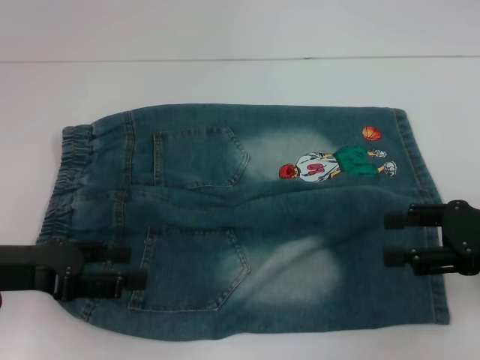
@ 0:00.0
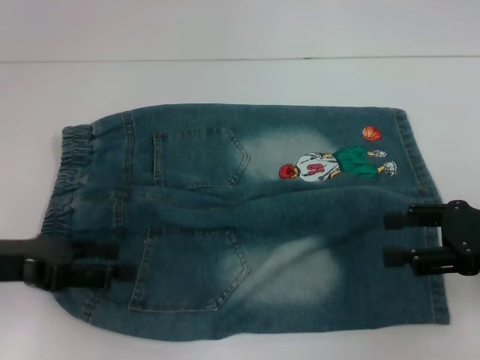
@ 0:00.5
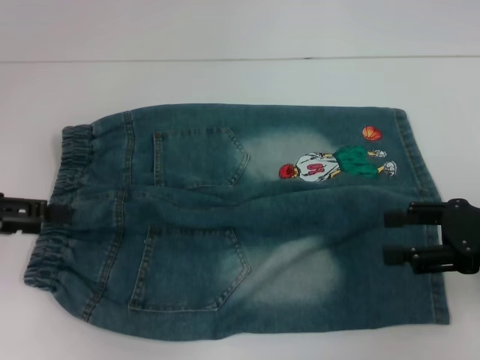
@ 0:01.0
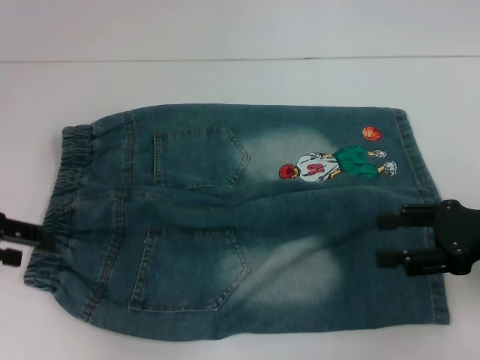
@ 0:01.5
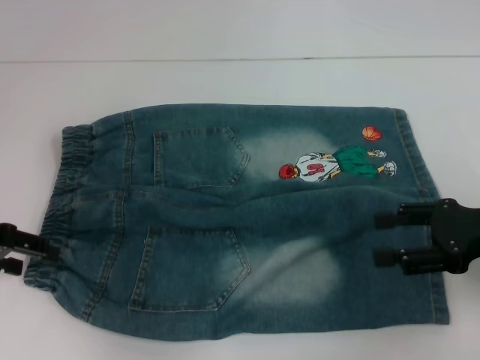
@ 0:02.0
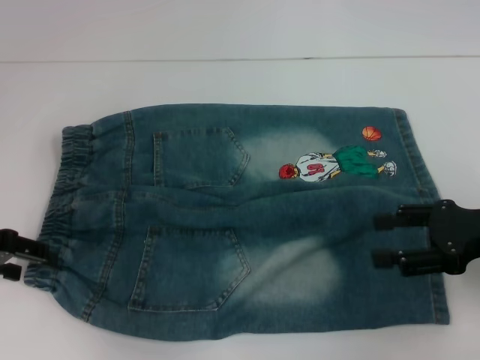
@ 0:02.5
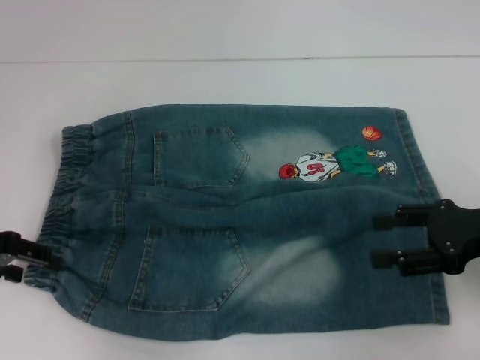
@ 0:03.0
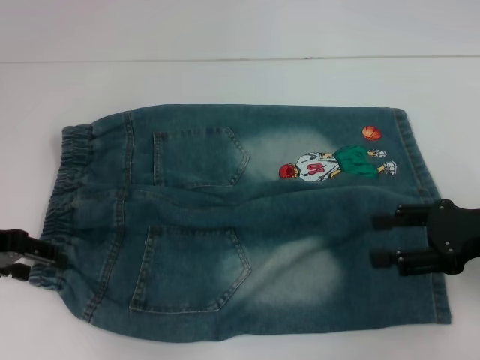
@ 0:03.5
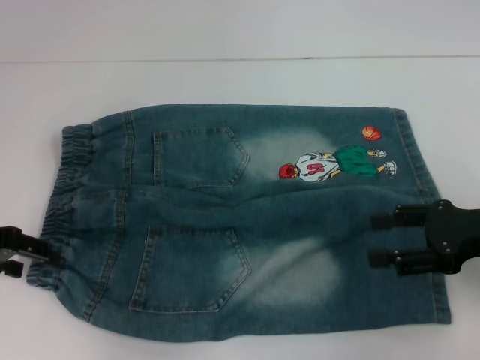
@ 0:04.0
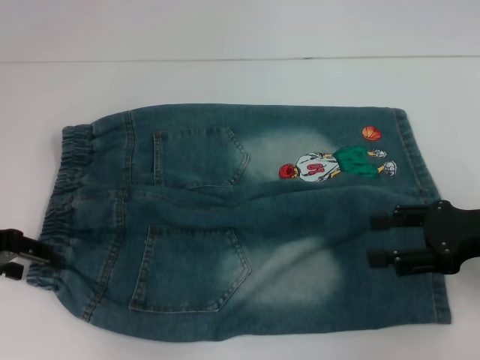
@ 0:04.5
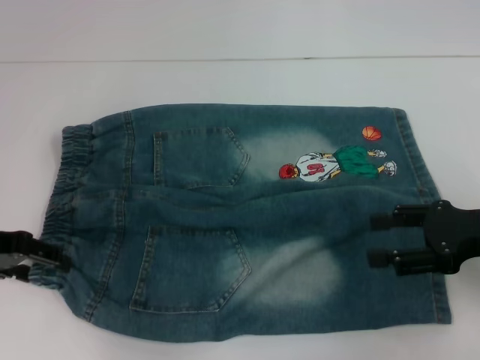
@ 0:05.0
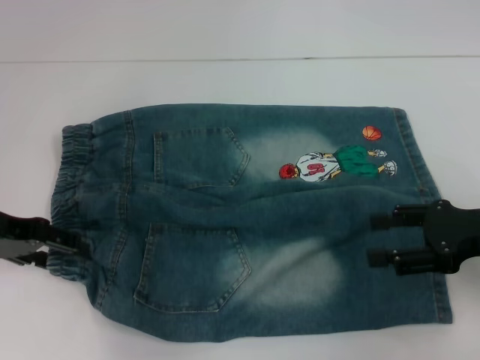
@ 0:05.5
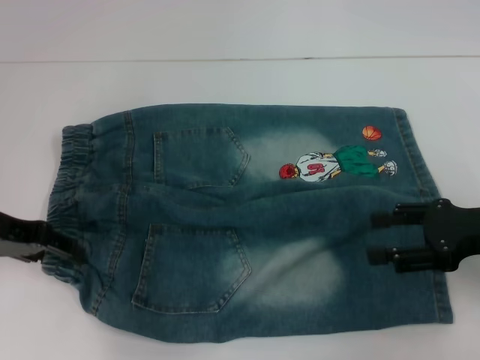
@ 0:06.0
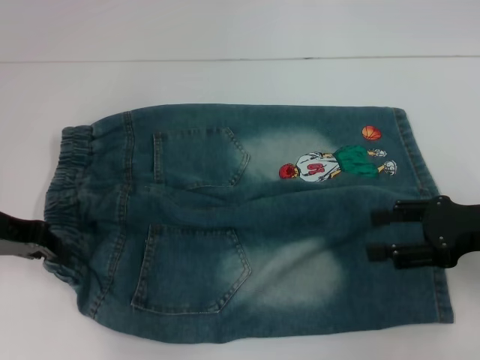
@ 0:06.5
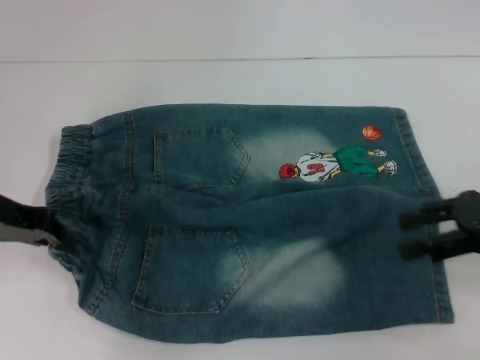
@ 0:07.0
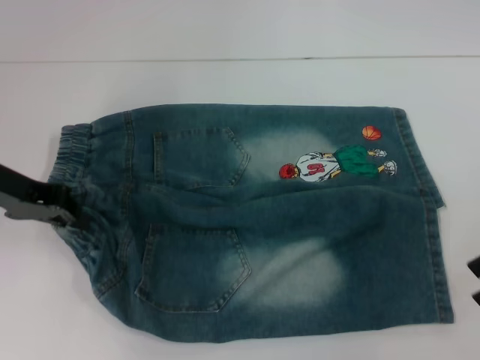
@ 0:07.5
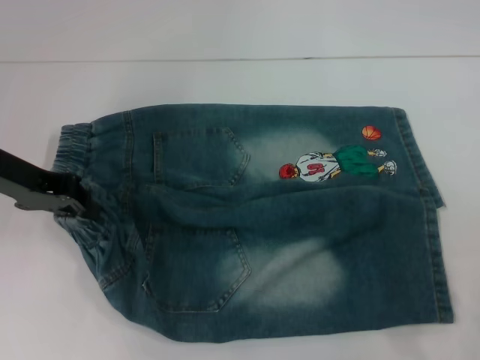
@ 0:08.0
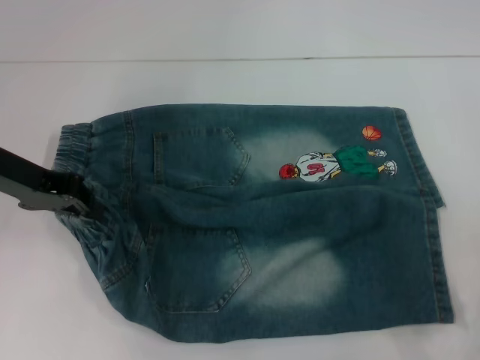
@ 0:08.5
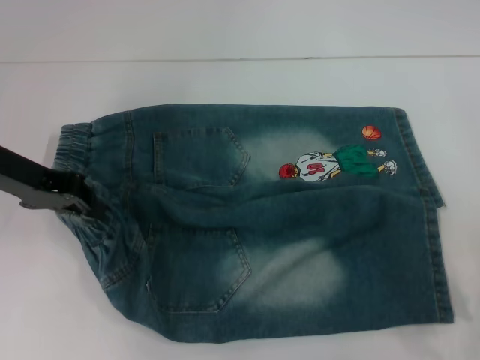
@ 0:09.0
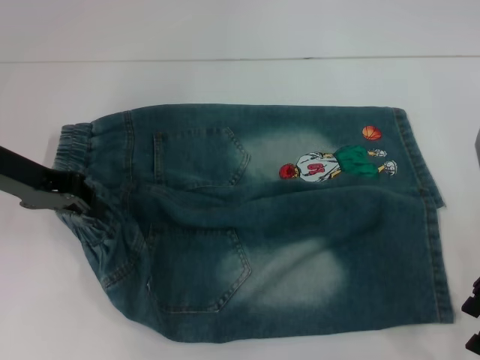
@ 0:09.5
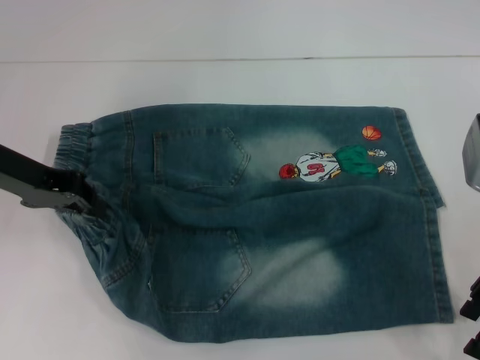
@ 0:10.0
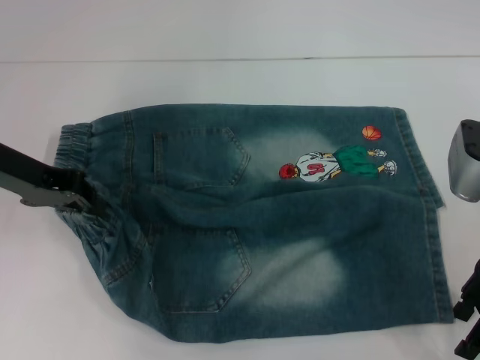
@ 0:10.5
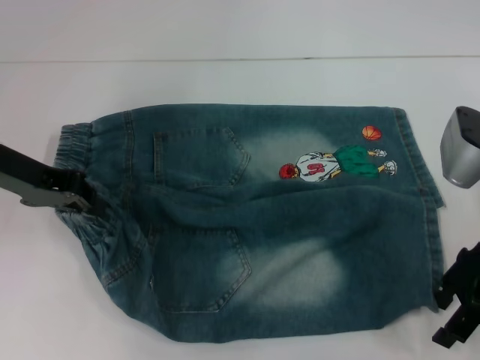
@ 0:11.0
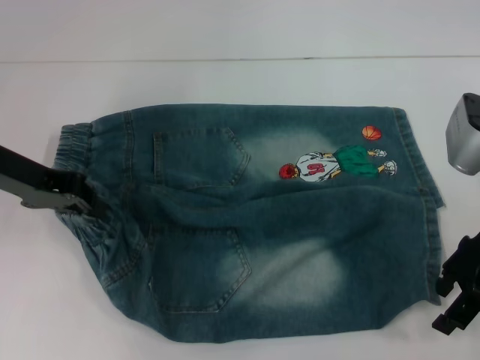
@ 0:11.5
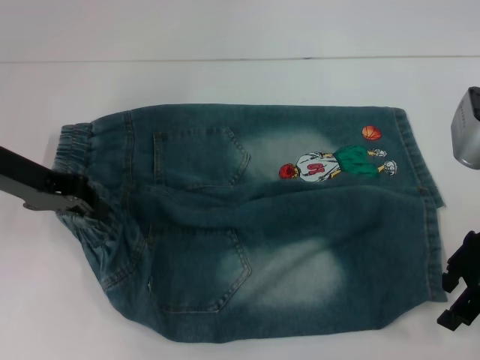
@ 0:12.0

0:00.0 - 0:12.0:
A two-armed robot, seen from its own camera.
Step, 0:00.0 - 0:07.0: Hold the lower left waistband with your left hand.
0:00.0 - 0:02.0: The left gripper moves forward, about 5 cm.
0:02.0 - 0:04.0: Neither gripper changes place.
0:04.0 - 0:06.0: The grippers move only a little.
0:06.0 - 0:08.0: The left gripper changes place by about 5 cm, and closes. Meanwhile the right gripper heads upward, covering roughly 5 cm.
0:08.0 - 0:10.0: The right gripper goes some 5 cm to the left.
0:10.0 - 0:12.0: There are only small adjustments of the grippers.

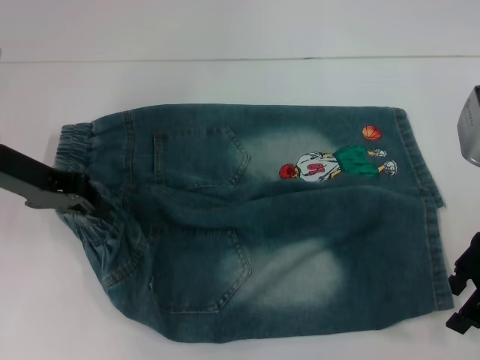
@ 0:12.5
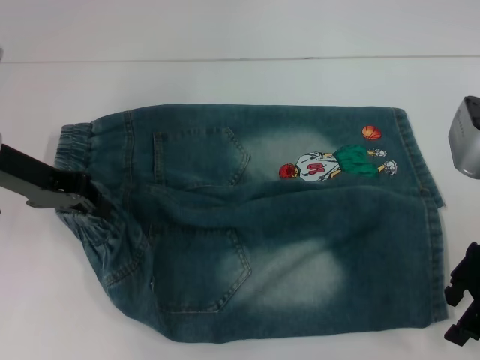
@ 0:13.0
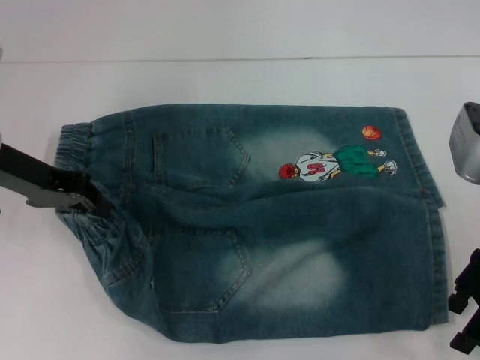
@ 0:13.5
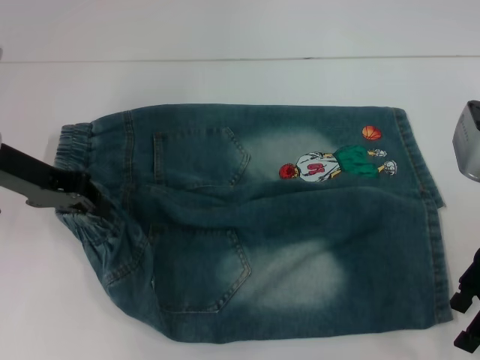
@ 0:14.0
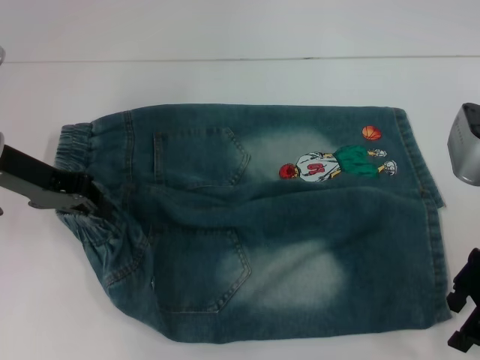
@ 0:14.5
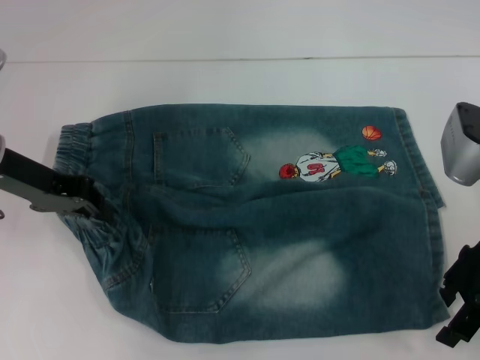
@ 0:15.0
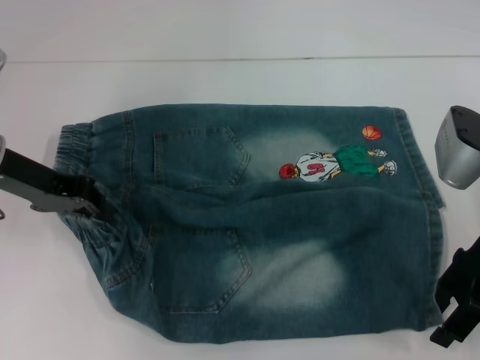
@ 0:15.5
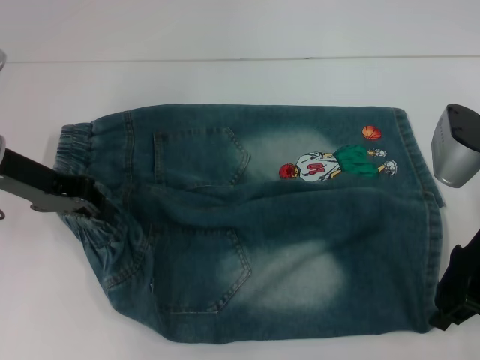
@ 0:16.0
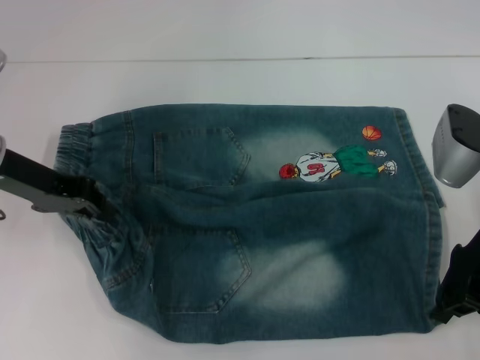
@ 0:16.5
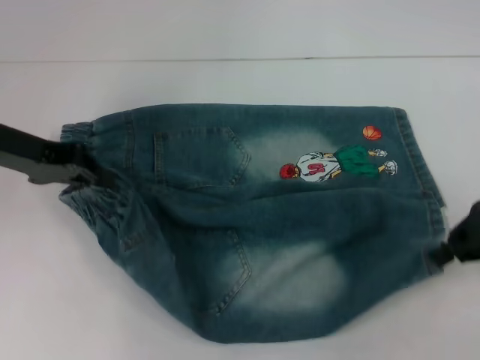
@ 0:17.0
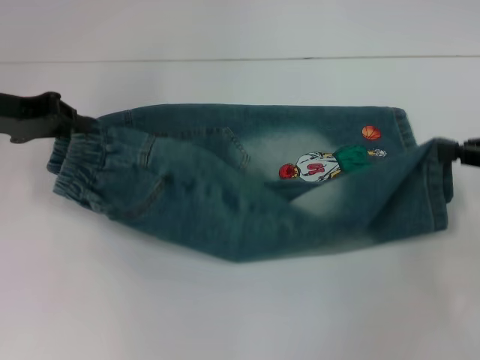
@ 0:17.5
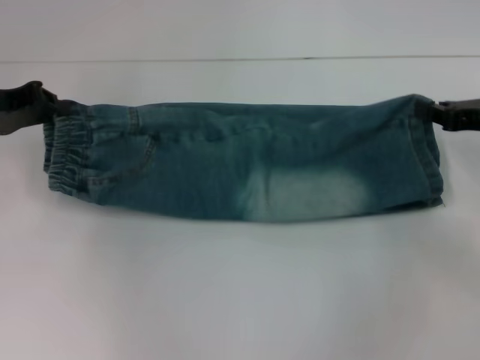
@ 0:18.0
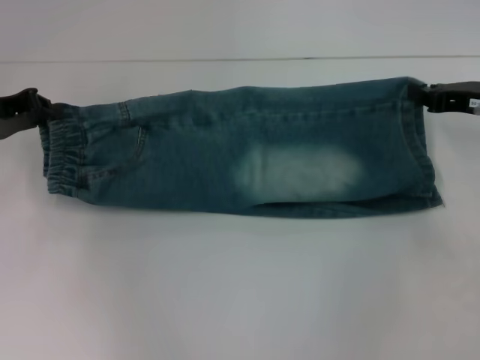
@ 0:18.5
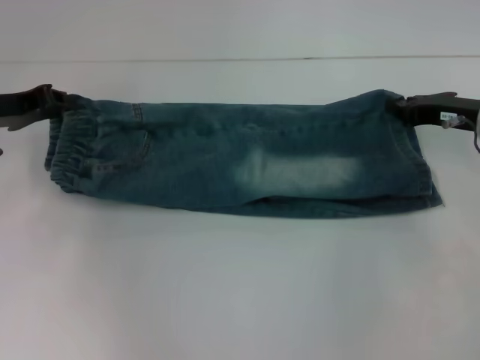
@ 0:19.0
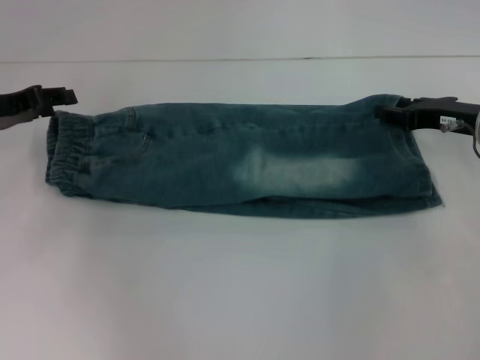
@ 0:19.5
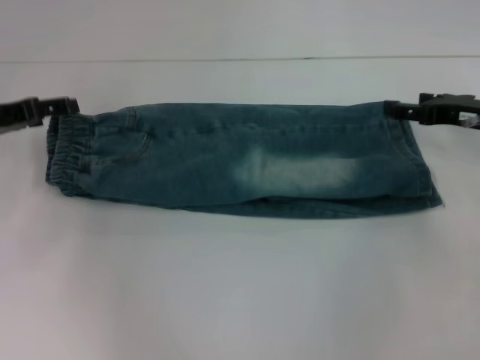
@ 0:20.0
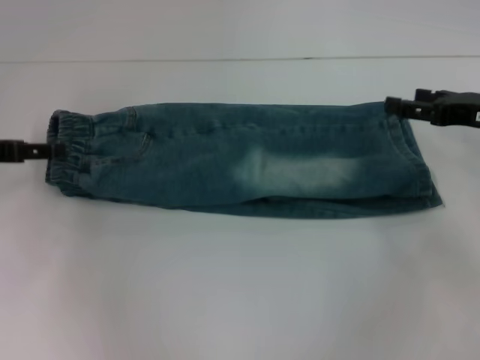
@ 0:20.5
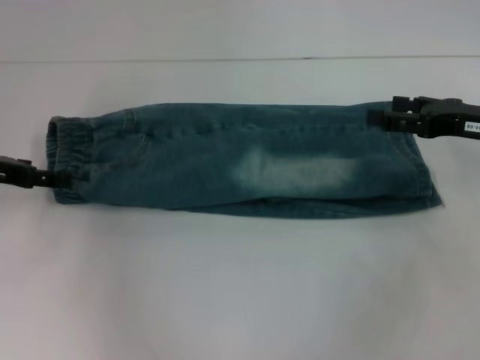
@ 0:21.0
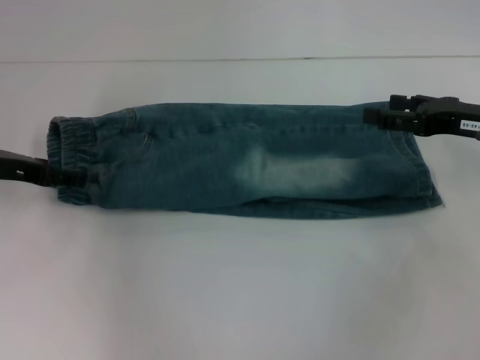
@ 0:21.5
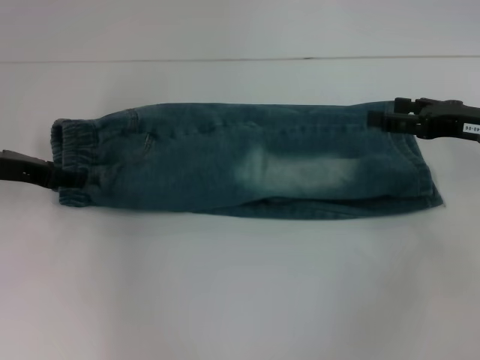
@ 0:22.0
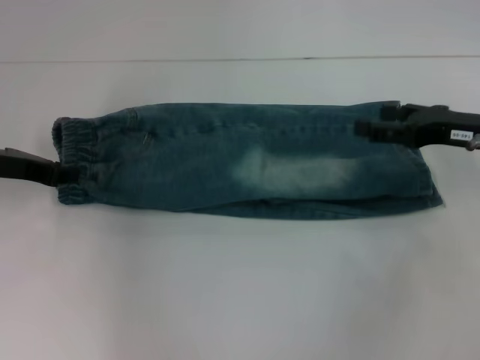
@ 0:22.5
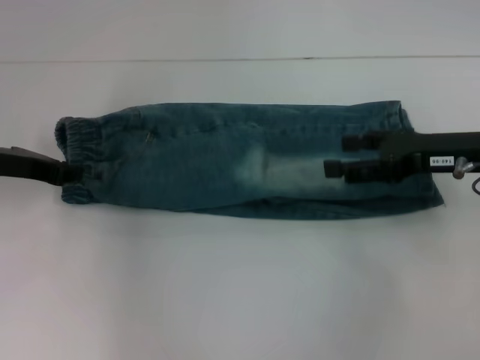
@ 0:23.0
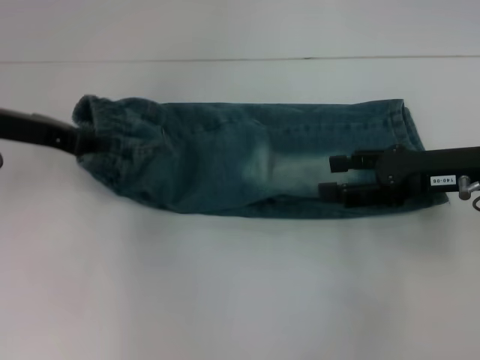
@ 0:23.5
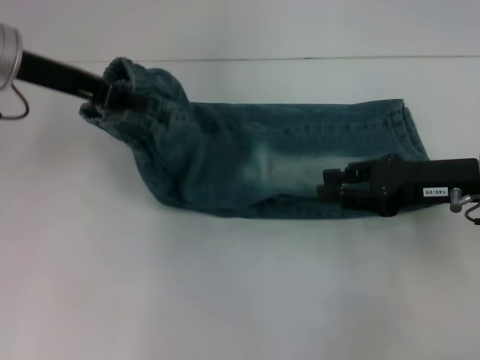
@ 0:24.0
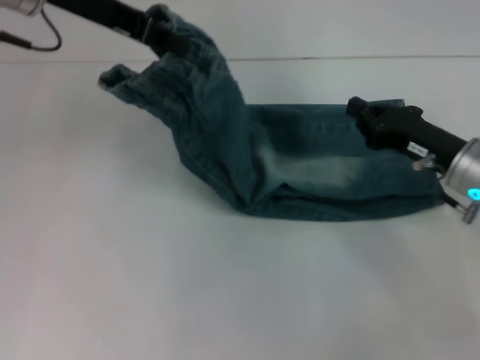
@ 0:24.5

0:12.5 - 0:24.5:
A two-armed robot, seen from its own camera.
Step, 0:12.5 - 0:16.0: Grab the lower right pant leg with your right hand.
Step, 0:16.5 - 0:19.0: Fold upward with your left hand.
Step, 0:20.0 - 0:23.0: Hold the waistband with your left hand.
0:12.5 - 0:14.5: The two grippers keep their place.
0:14.5 - 0:16.5: The right gripper closes its fingers.
0:16.5 - 0:18.5: The right gripper moves to the right and forward, some 10 cm. Meanwhile the left gripper moves to the left, roughly 5 cm.
0:18.5 - 0:20.5: The right gripper opens its fingers. Meanwhile the left gripper opens up.
0:20.5 - 0:22.5: The left gripper closes up.
0:22.5 - 0:24.5: The right gripper moves about 5 cm, and closes up. The left gripper shifts approximately 20 cm upward and to the right.

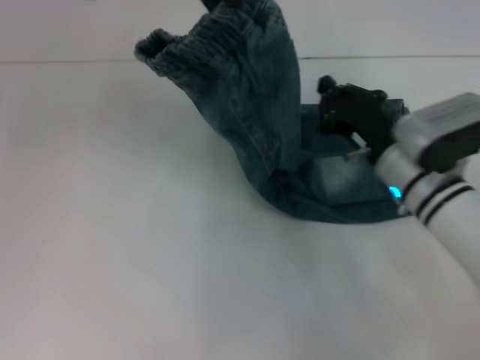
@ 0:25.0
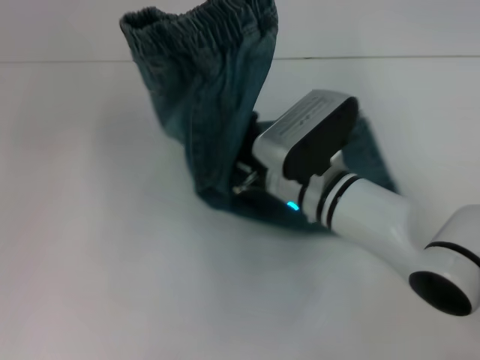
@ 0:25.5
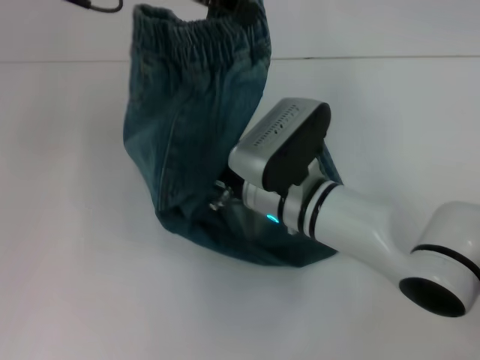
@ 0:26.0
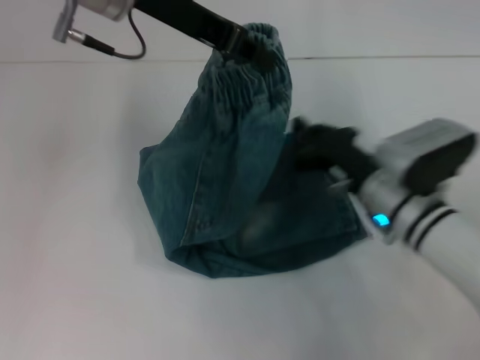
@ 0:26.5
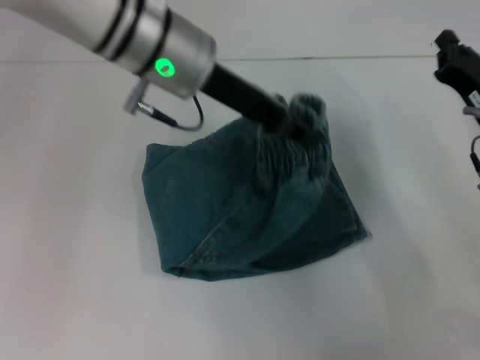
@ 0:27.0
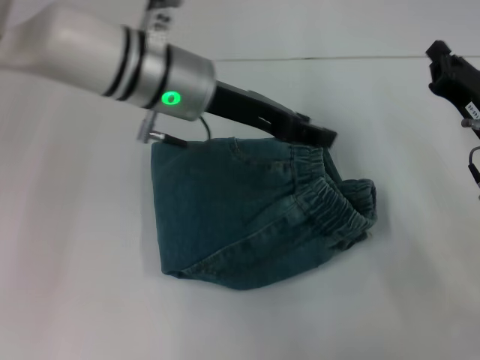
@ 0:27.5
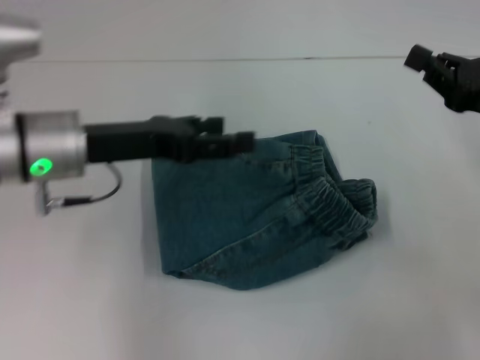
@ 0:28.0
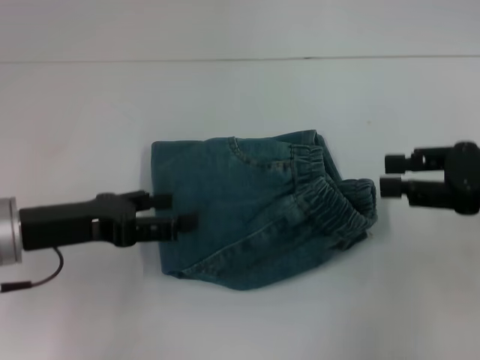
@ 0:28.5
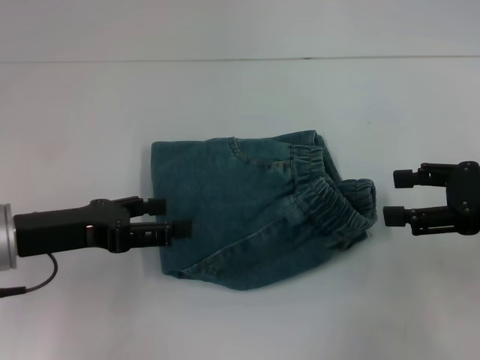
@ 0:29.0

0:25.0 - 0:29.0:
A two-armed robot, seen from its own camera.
Step, 0:26.0 - 0:27.0: Fold to the right with your left hand.
0:25.0 - 0:27.0: The left gripper travels downward and to the right by roughly 15 cm. Meanwhile the right gripper travels to the right by about 10 cm.
0:27.0 - 0:29.0: The left gripper shifts roughly 25 cm to the left, backward and downward, and opens up, while the right gripper moves upward and backward, roughly 10 cm, and opens up.
